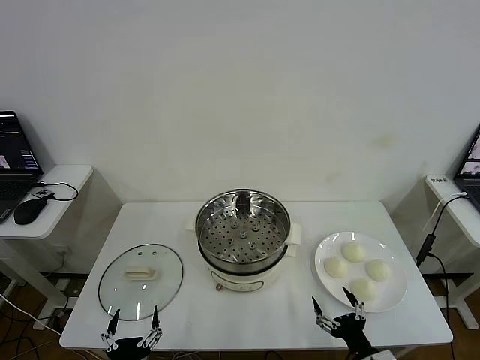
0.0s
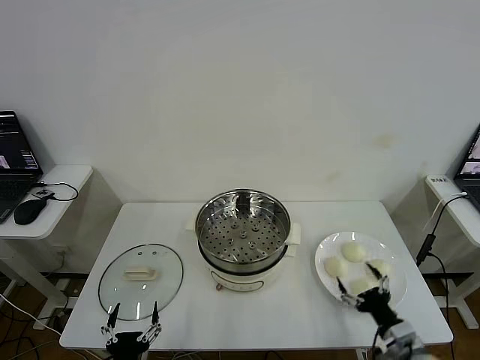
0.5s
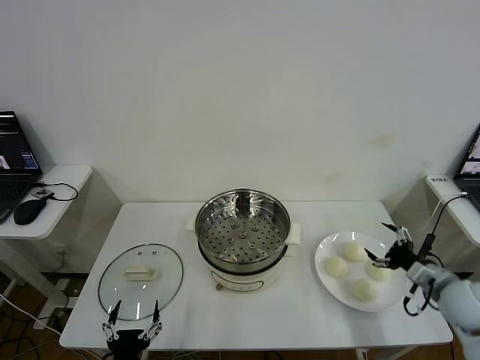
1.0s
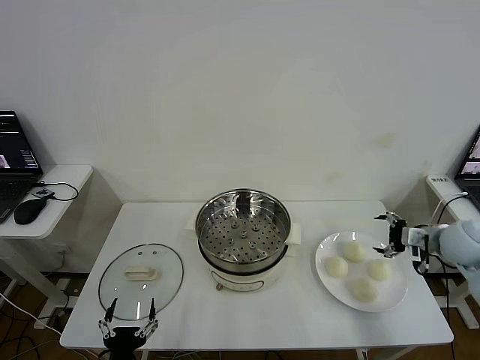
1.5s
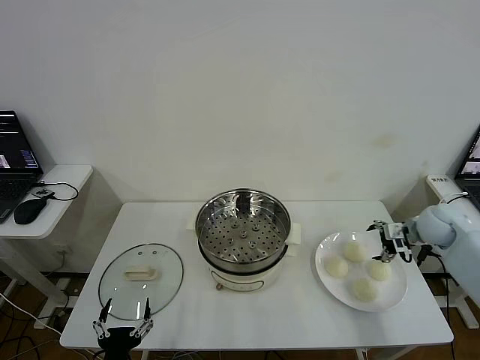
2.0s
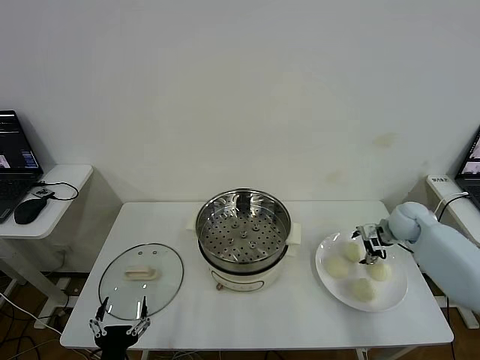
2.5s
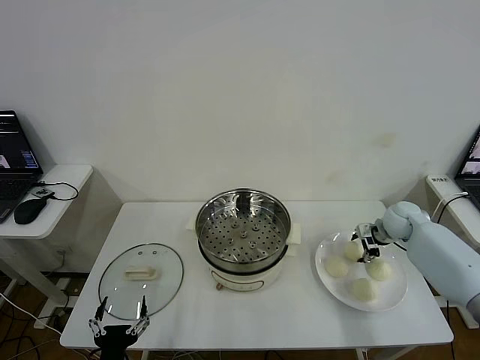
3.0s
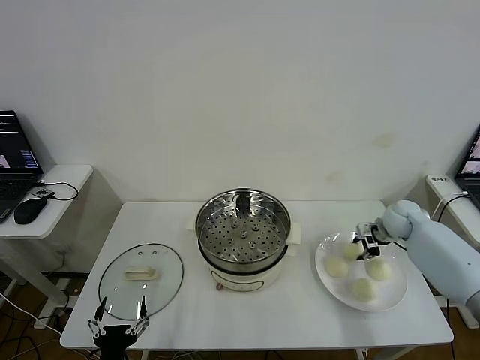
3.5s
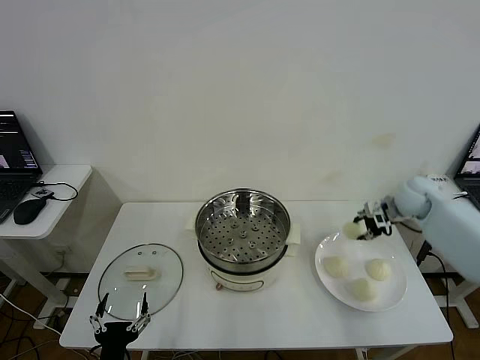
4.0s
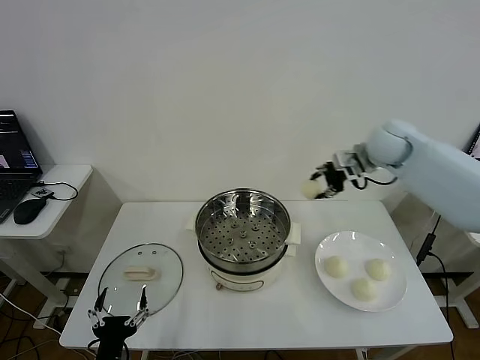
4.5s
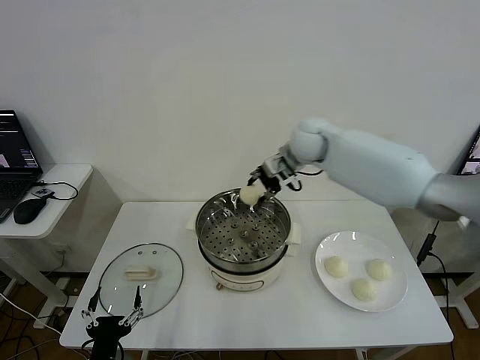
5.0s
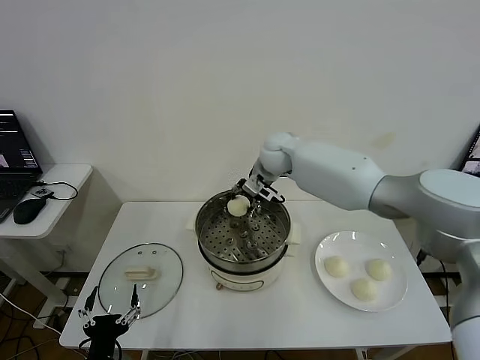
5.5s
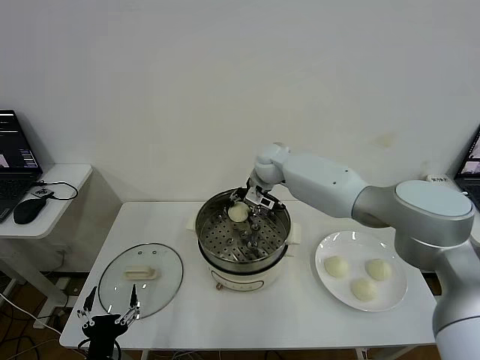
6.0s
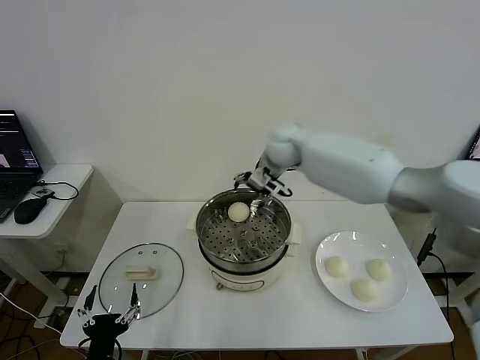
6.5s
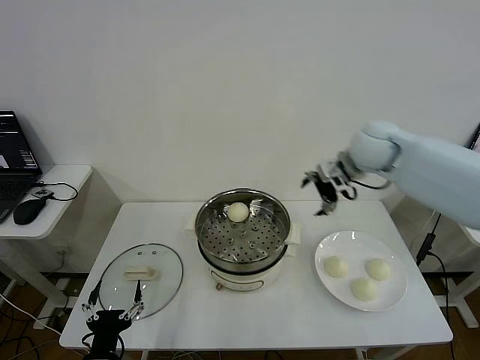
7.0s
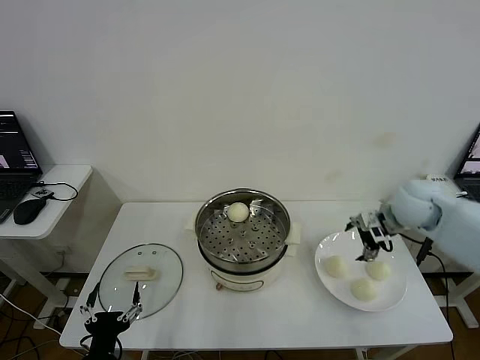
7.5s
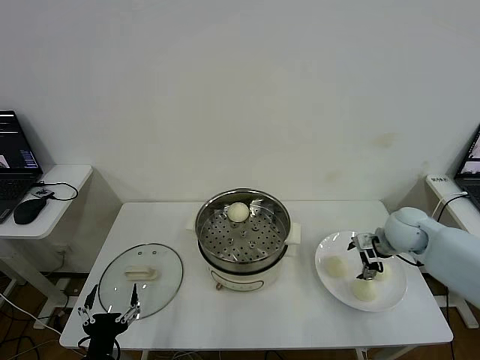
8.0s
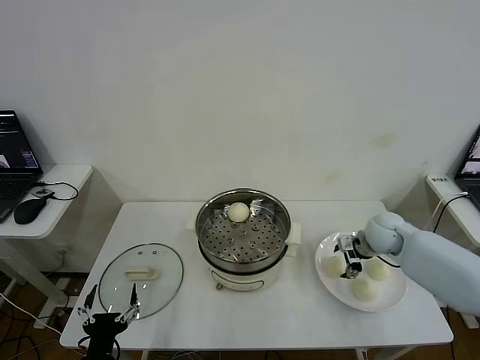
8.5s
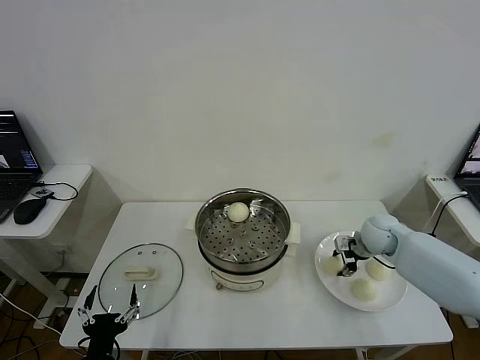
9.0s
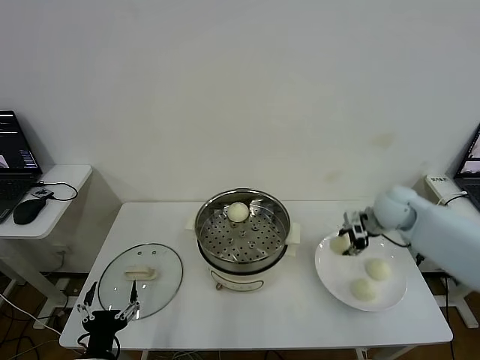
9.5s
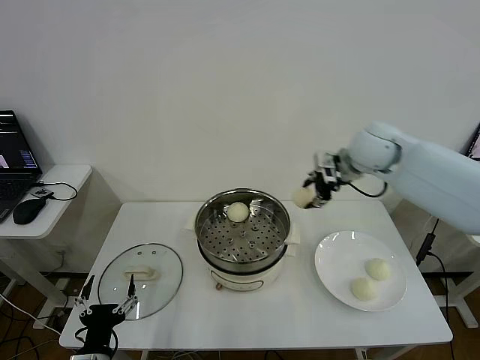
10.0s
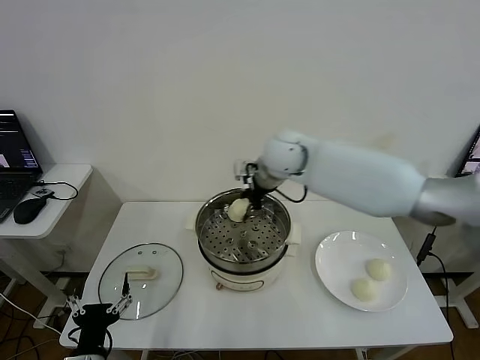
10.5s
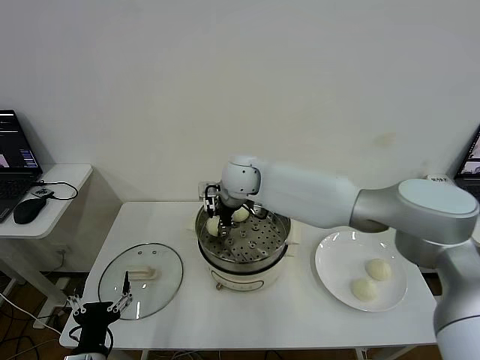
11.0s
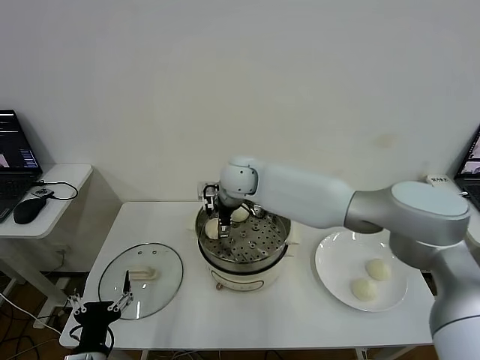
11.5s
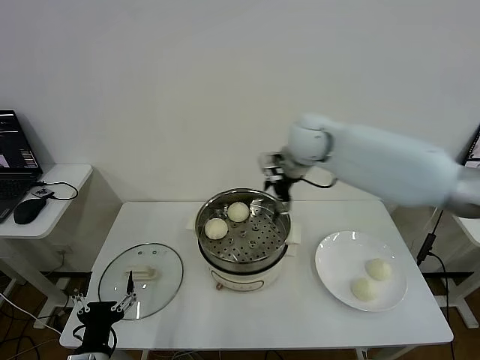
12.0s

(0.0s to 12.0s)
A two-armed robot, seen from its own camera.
Step, 0.0s - 3.0s: Grasp the baozi in the plate with right gripper.
Step, 3.5s - 6.0s: Place the baozi on the steamer with right gripper.
Step, 7.0s - 9.0s: Grasp the baozi in the plate with right gripper.
Step, 9.5s - 11.5s: Place the baozi on the steamer with right gripper.
2.0s - 4.0s: The right gripper heads upward and forward, covering roughly 10 cm, and closes.
4.0s - 6.0s: The right gripper shifts approximately 35 cm to the left, and opens.
6.0s - 8.0s: The right gripper shifts approximately 35 cm to the right and backward, and opens up.
8.0s - 10.0s: The right gripper heads upward and to the left, covering about 25 cm, and closes.
10.0s - 12.0s: The right gripper moves some 25 cm to the left and comes back, and opens up.

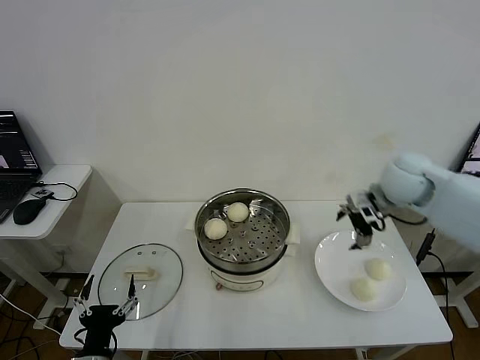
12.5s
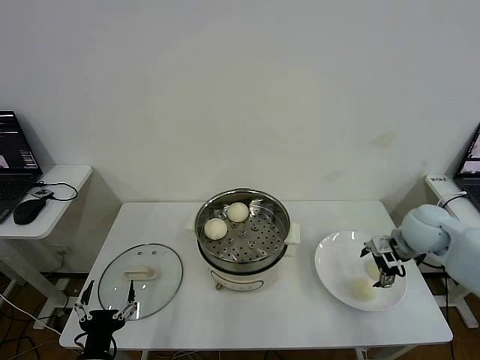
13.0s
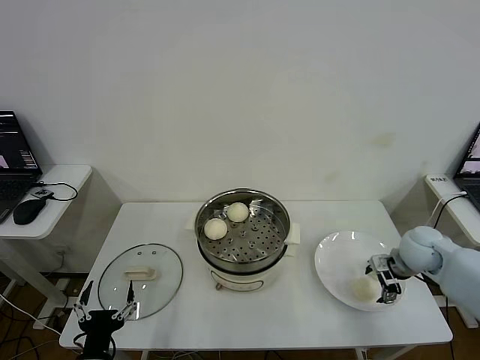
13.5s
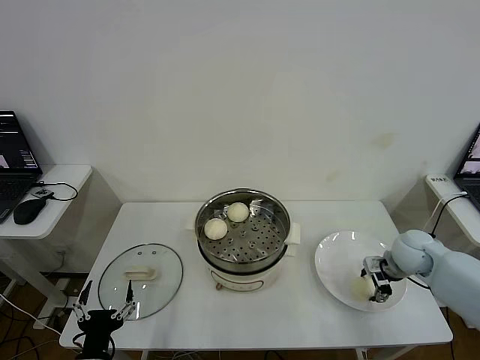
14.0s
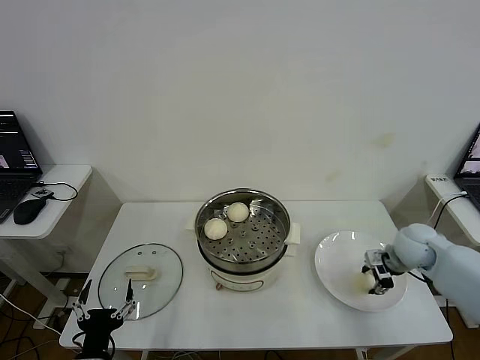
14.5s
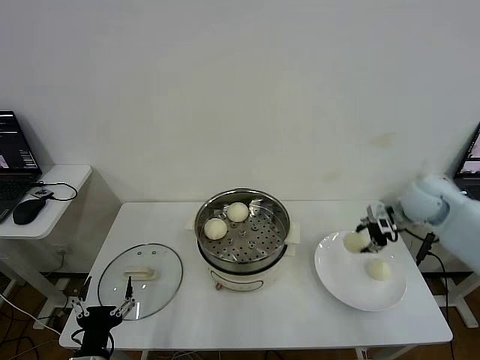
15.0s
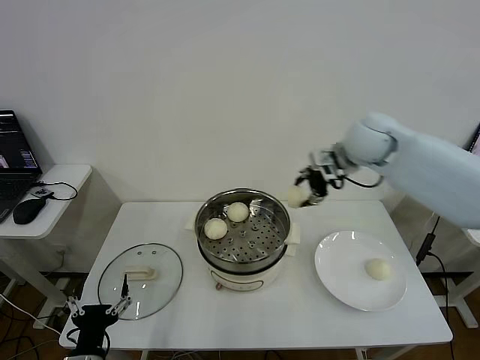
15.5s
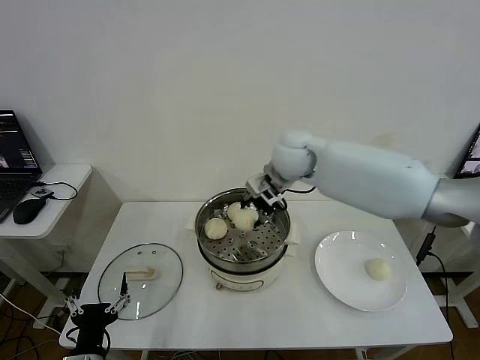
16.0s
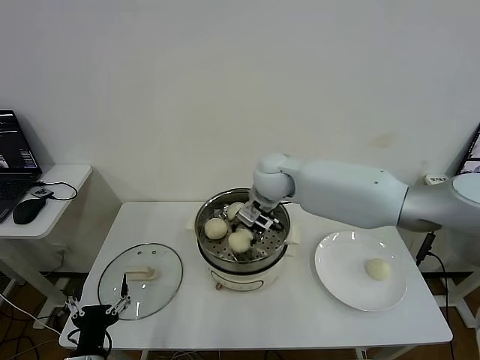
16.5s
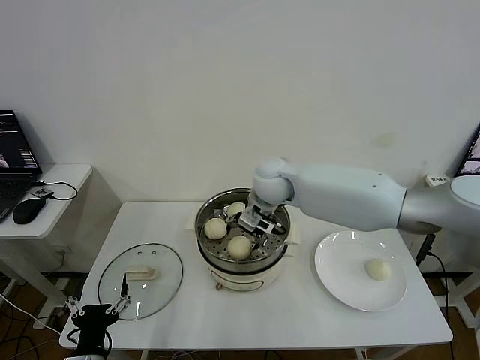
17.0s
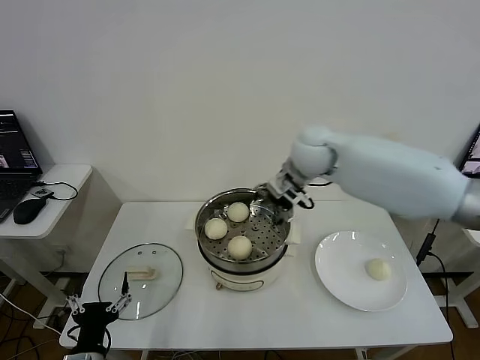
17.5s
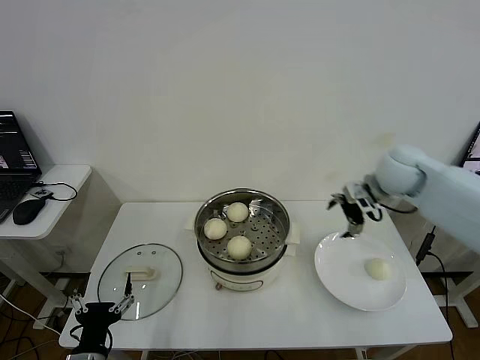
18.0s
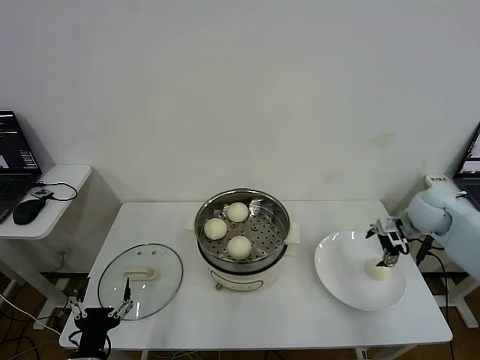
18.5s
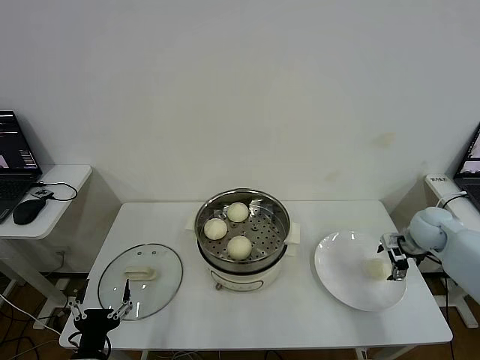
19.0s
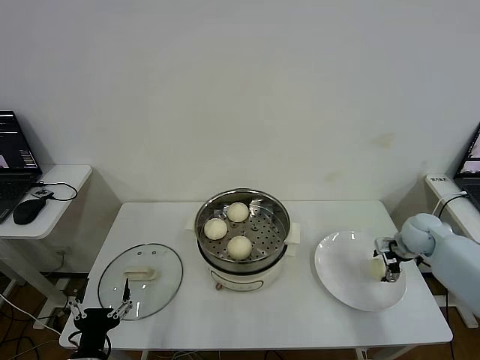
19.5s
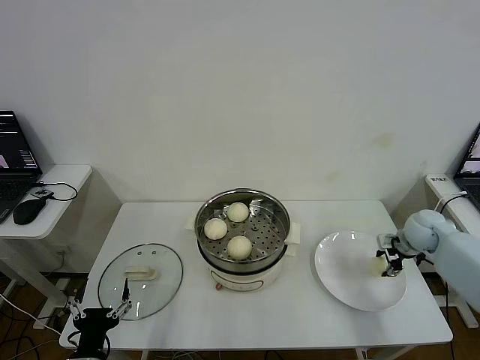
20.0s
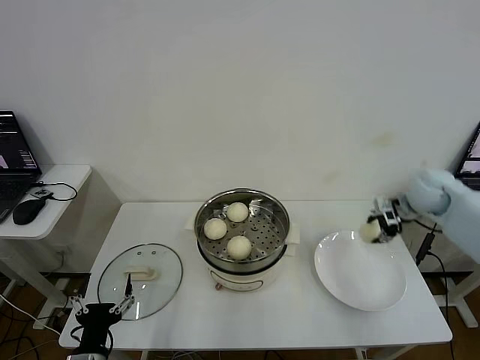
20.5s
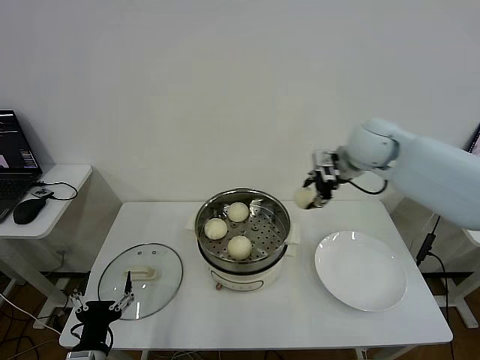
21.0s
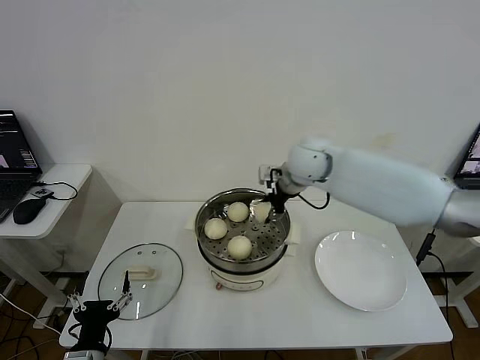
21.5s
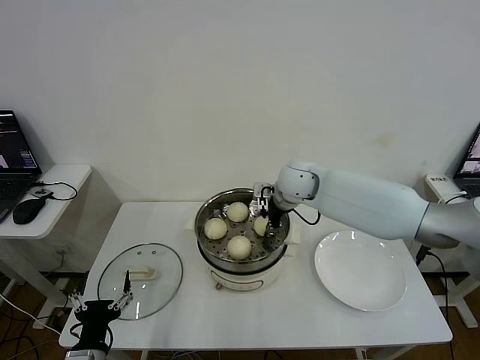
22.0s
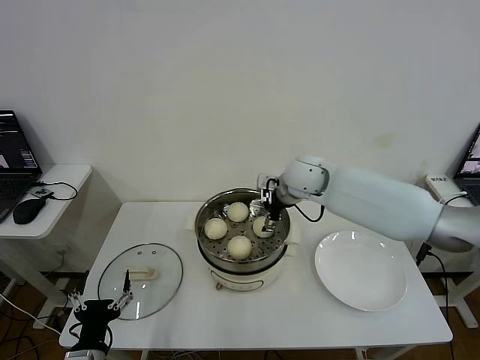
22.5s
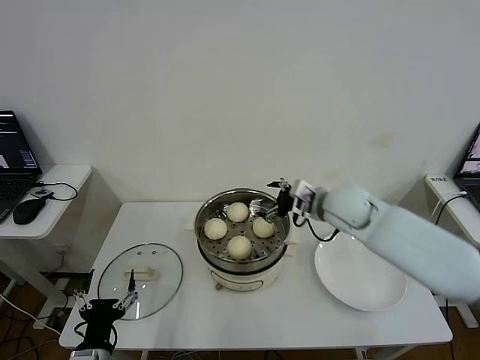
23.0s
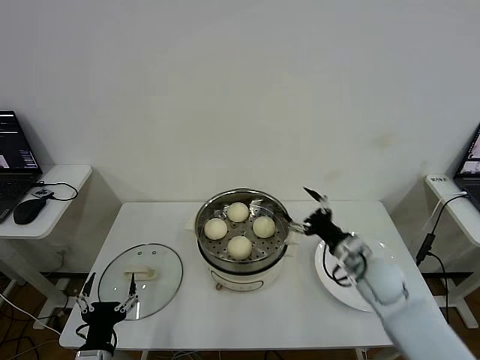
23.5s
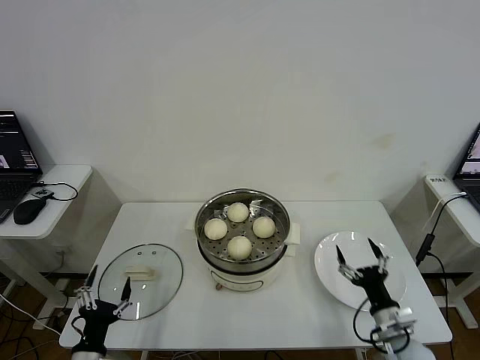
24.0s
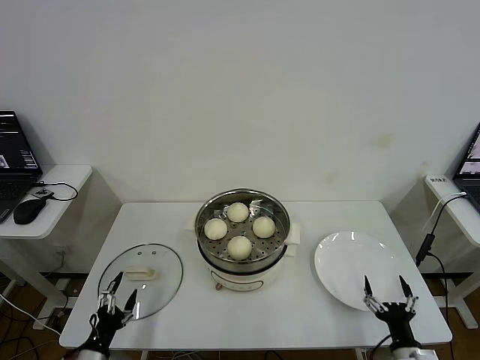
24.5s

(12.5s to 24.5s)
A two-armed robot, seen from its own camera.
Step, 12.5s - 14.0s: Grasp the baozi in the plate with right gripper.
Step, 14.5s - 17.0s: Place the baozi on the steamer with right gripper.
Step, 17.5s - 19.5s: Grasp the baozi in the plate with right gripper.
Step, 20.0s - 22.0s: Place the baozi on the steamer with right gripper.
12.5s - 14.5s: The right gripper is displaced downward and to the right by roughly 15 cm, and closes its fingers.
14.5s - 16.5s: The right gripper goes some 35 cm to the left.
16.5s - 18.5s: The right gripper goes about 35 cm to the right, and opens up.
18.5s - 20.5s: The right gripper goes approximately 5 cm upward, and closes its fingers.
20.5s - 22.5s: The right gripper travels to the left by some 25 cm, and opens up.
22.5s - 24.5s: The left gripper is displaced downward and to the left by about 10 cm, while the right gripper heads backward, downward and to the right, covering approximately 50 cm.

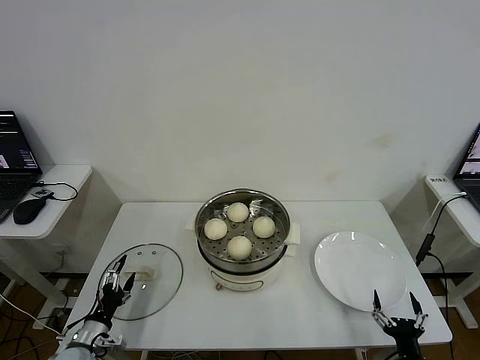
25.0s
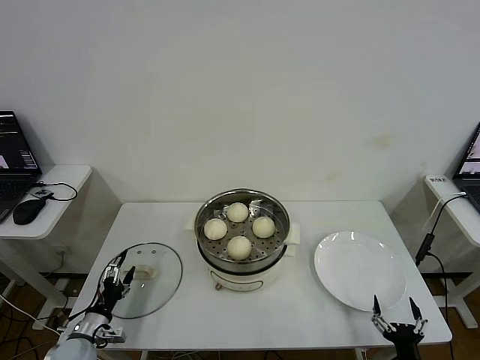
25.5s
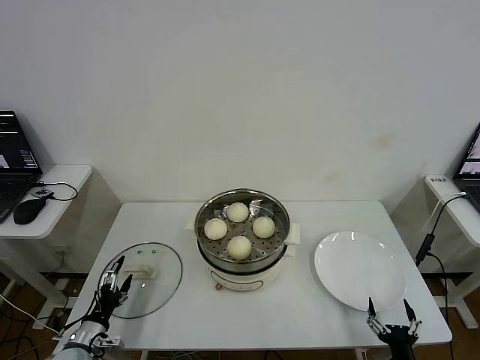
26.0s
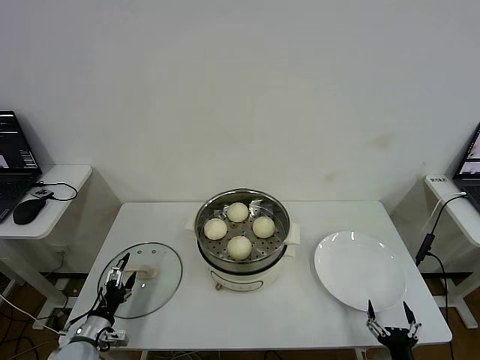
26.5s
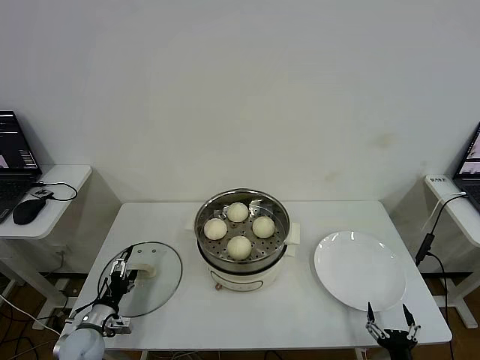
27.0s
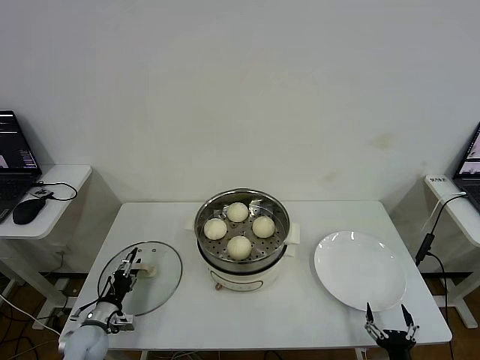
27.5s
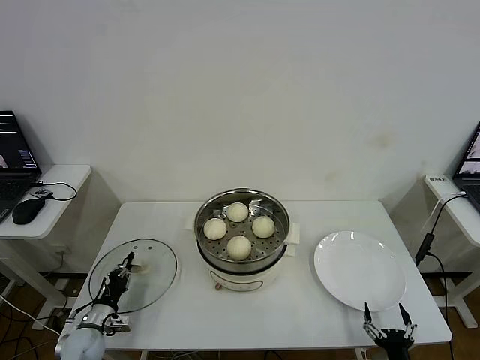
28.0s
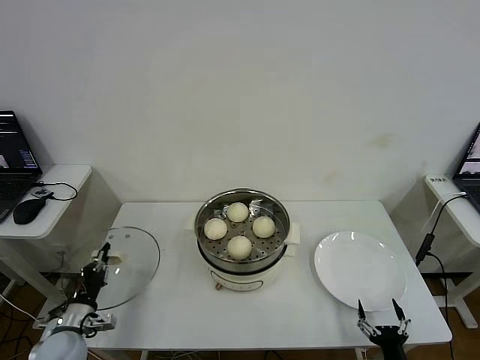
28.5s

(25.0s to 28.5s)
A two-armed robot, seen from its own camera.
Step, 25.0s - 28.0s: Grasp the pot lid with left gripper.
25.0s - 27.0s: The grippers move only a little.
27.0s - 28.5s: The left gripper ends up about 5 cm from where it was, and closes up.
